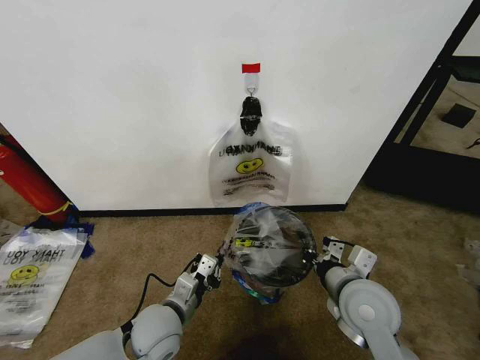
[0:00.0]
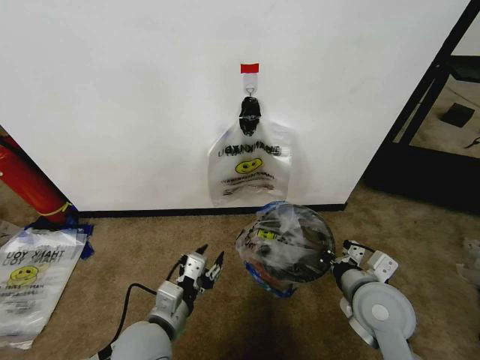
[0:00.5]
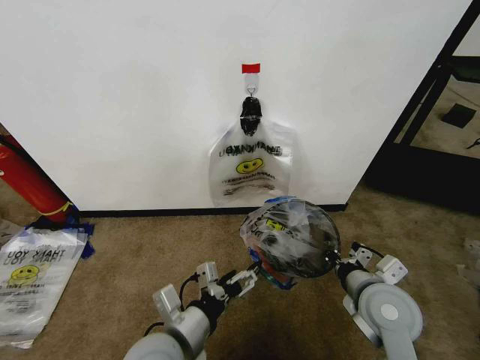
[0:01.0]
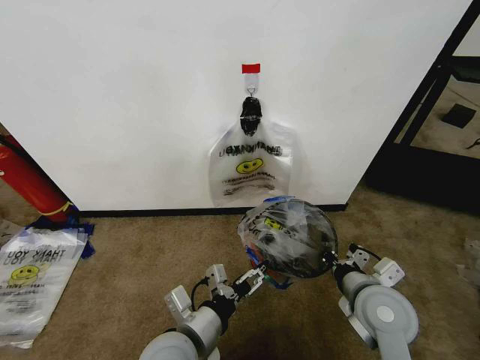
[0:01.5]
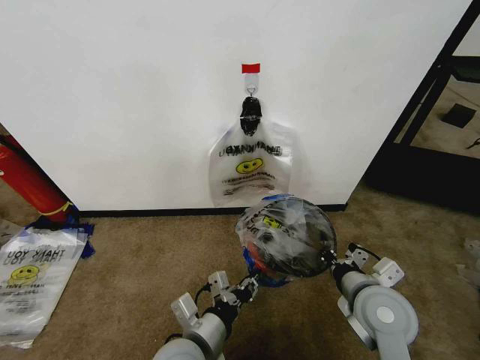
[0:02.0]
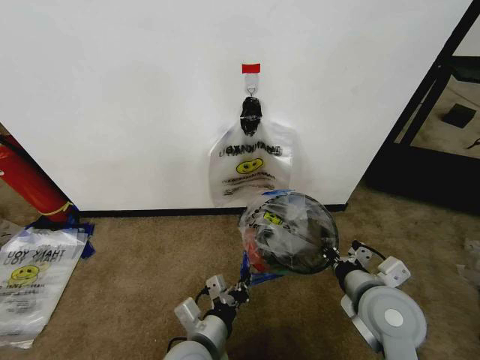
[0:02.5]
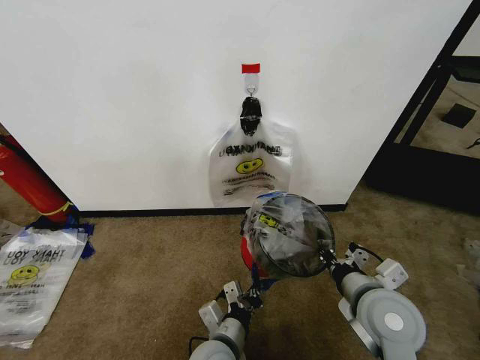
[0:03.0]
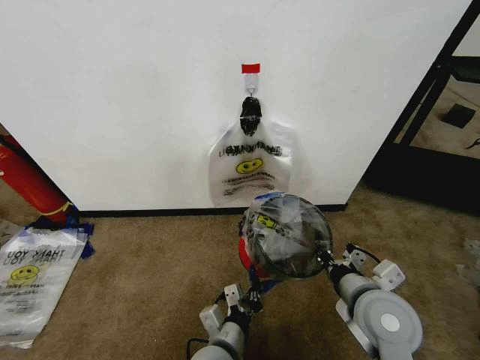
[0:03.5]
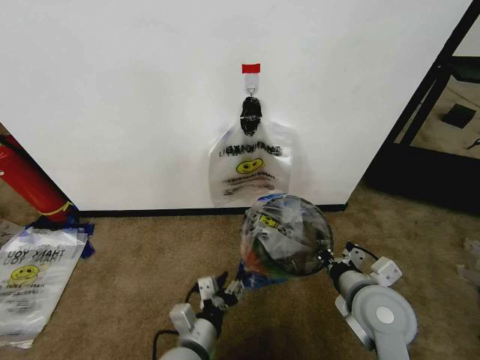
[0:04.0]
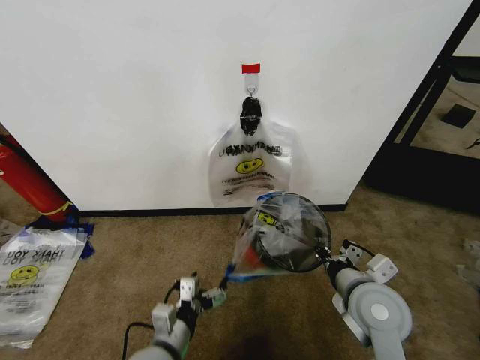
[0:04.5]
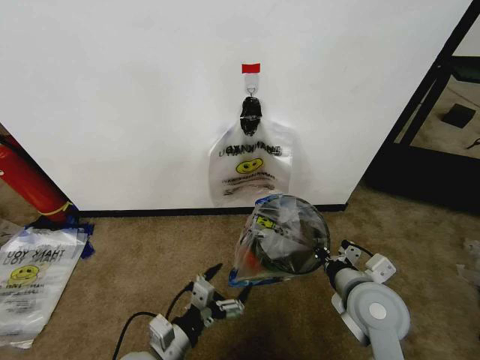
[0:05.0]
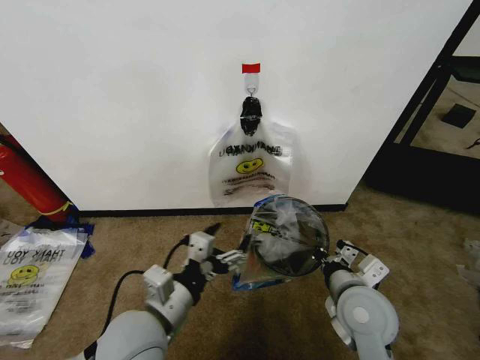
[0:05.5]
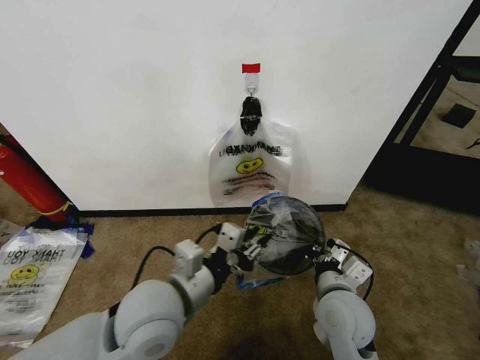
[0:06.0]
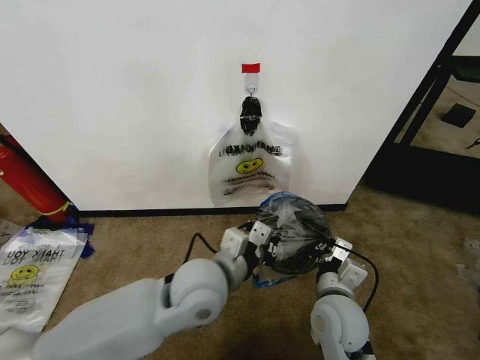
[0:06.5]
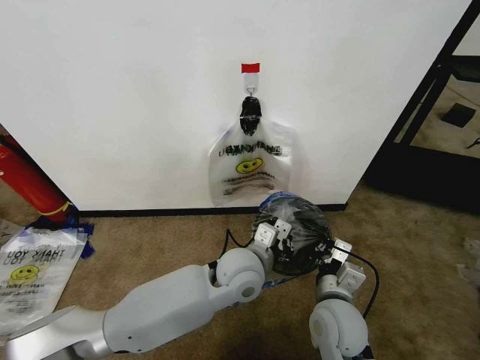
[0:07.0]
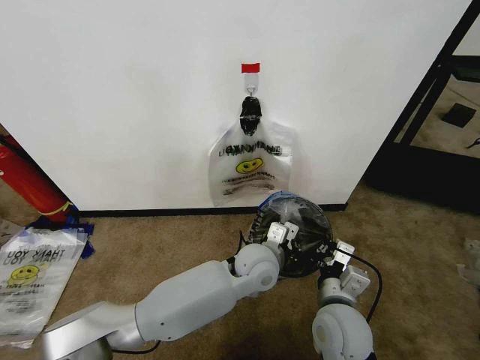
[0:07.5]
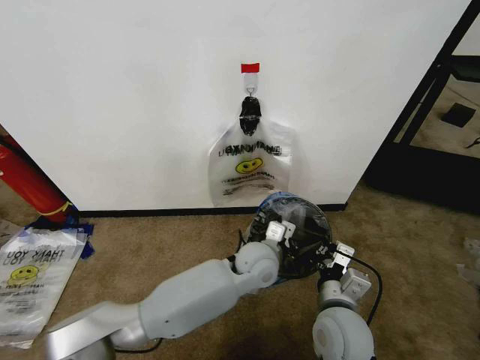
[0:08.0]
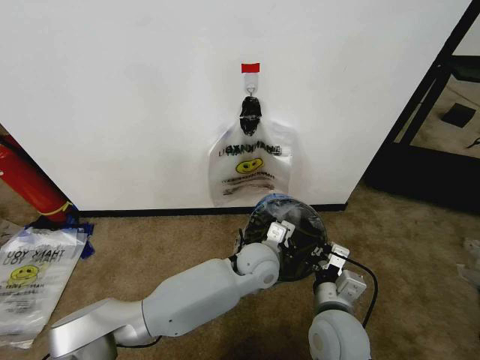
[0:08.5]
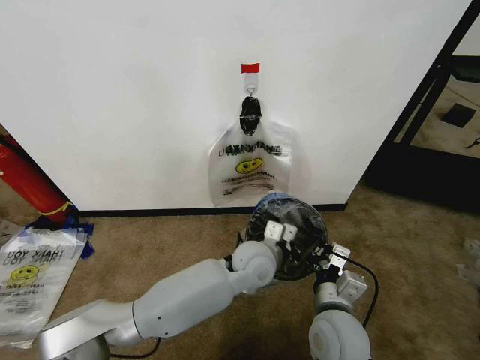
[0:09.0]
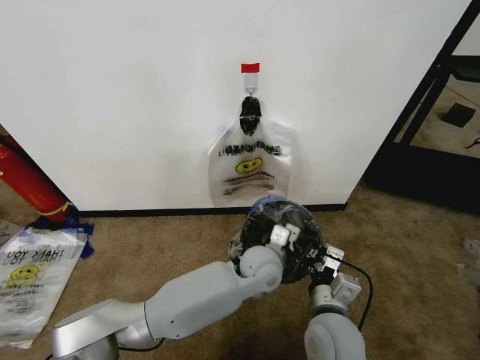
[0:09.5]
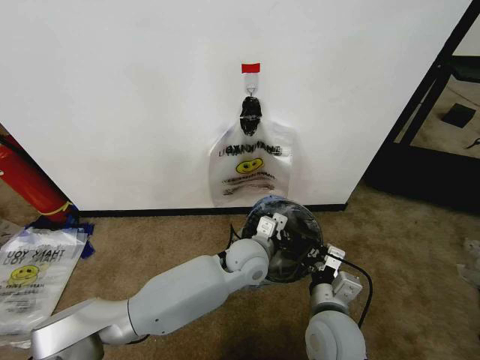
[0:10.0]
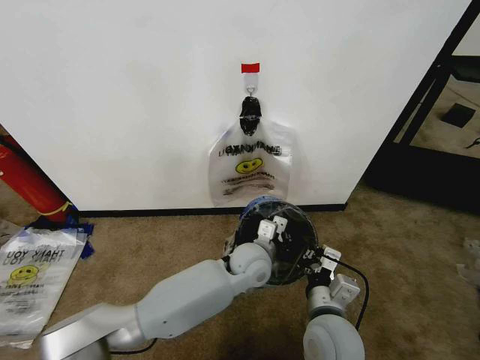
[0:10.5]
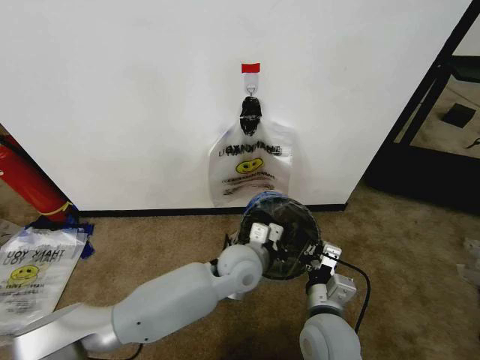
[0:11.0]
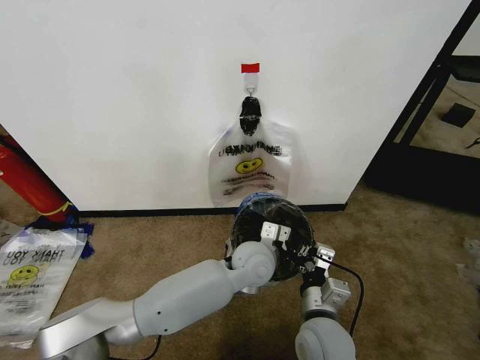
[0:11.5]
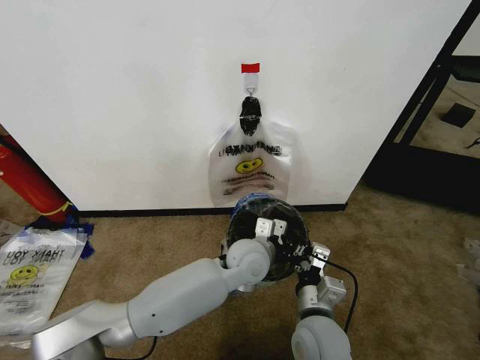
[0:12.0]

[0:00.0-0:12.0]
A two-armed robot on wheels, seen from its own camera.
Task of the whole recording: Pick up the garbage bag from the wall and place it over the trash bin.
0:00.0 to 0:02.0: The left gripper goes about 10 cm backward and to the right, and opens and closes again.
0:02.0 to 0:04.0: The left gripper shifts some 5 cm downward.
0:04.0 to 0:06.0: The right gripper heads to the left, covering some 5 cm, while the left gripper shifts some 15 cm upward, and opens and closes again.
0:06.0 to 0:08.0: The left gripper moves to the right, forward and downward, approximately 25 cm.
0:08.0 to 0:12.0: The grippers stay close to where they were, moving slightly.

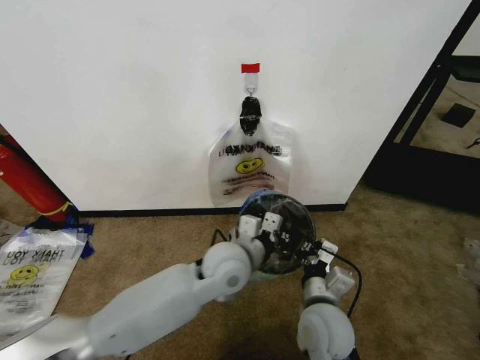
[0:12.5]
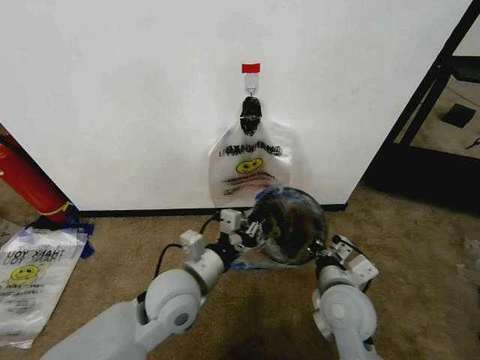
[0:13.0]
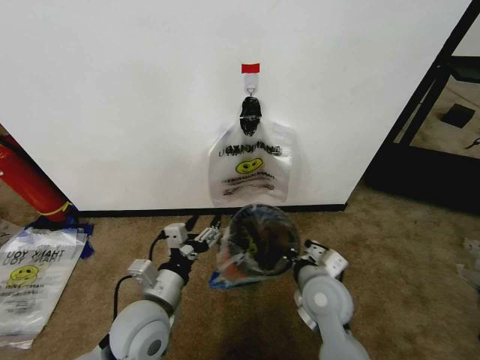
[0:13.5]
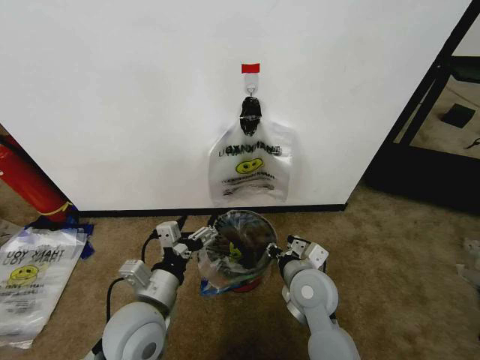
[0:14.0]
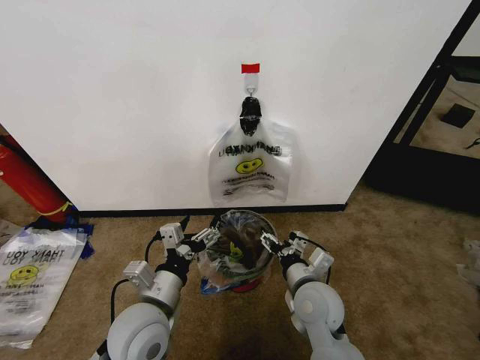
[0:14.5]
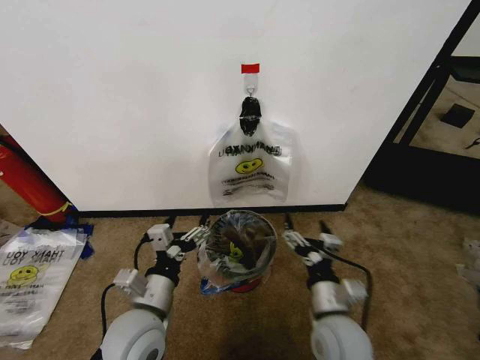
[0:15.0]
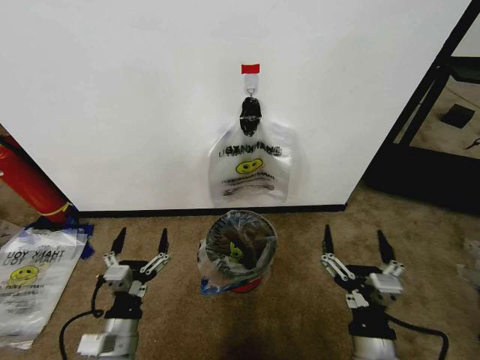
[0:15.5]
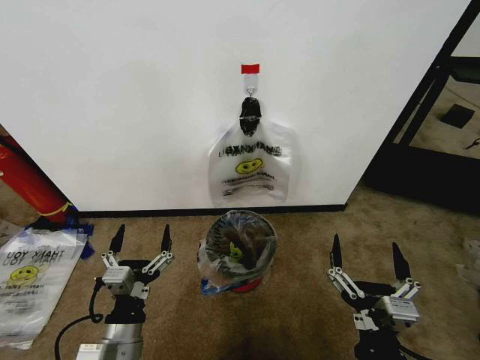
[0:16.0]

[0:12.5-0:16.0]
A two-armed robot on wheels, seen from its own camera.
Task of the whole recording: Pick up the garbage bag from the wall and place it over the trash bin.
0:12.5 to 0:14.5: The right gripper opens. Meanwhile the left gripper goes roughly 20 cm to the left and backward, and opens its fingers.
0:14.5 to 0:16.0: The right gripper moves backward, some 20 cm, while the left gripper heads backward and downward, covering some 10 cm.
